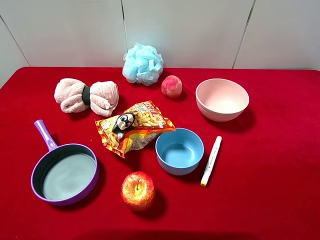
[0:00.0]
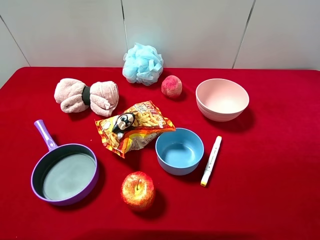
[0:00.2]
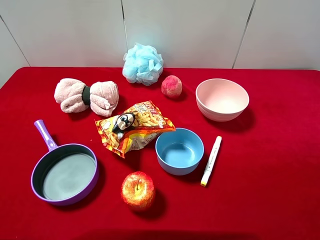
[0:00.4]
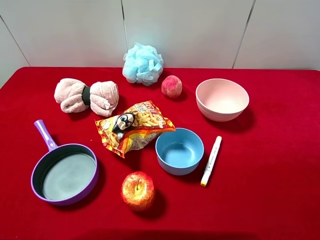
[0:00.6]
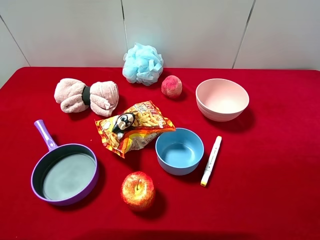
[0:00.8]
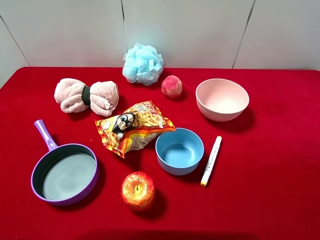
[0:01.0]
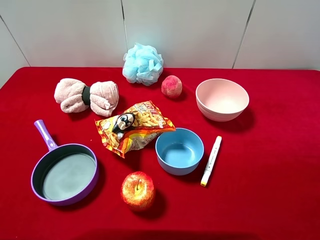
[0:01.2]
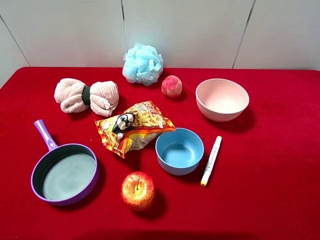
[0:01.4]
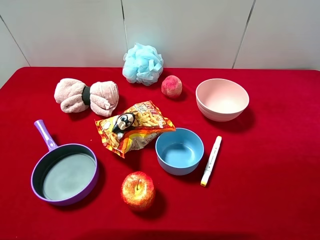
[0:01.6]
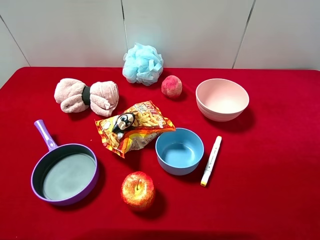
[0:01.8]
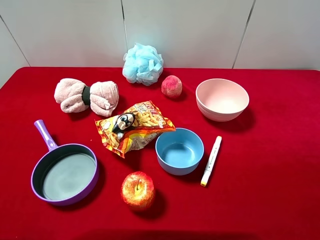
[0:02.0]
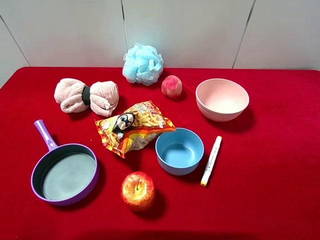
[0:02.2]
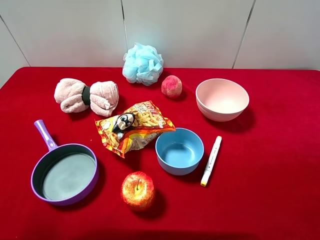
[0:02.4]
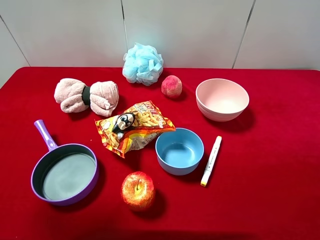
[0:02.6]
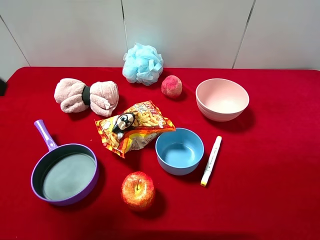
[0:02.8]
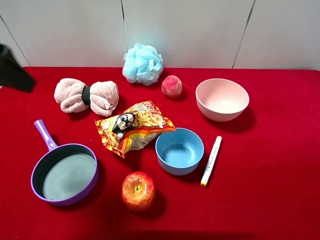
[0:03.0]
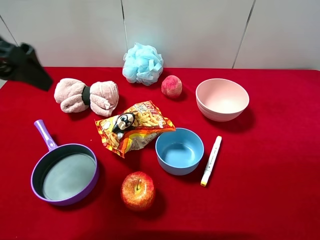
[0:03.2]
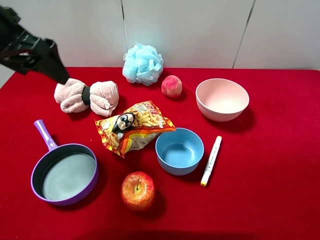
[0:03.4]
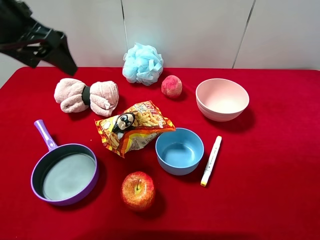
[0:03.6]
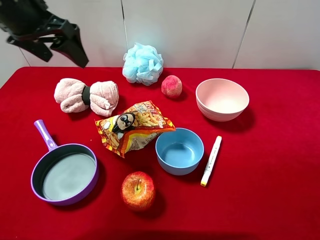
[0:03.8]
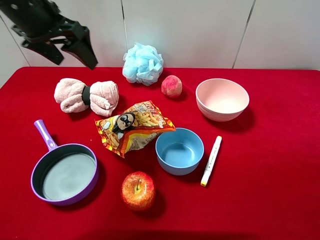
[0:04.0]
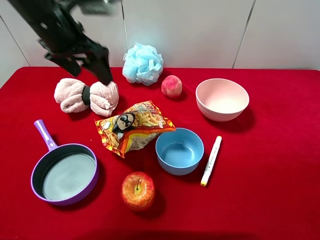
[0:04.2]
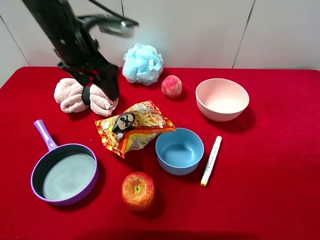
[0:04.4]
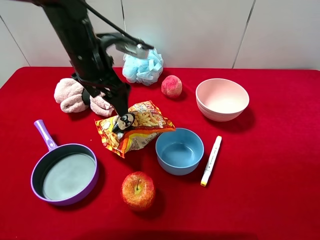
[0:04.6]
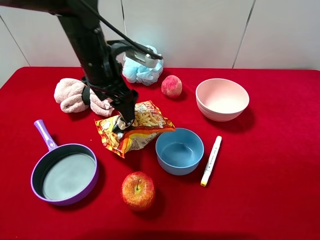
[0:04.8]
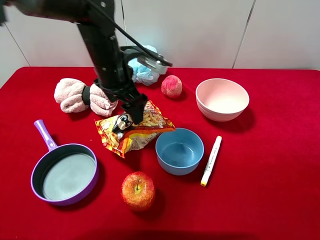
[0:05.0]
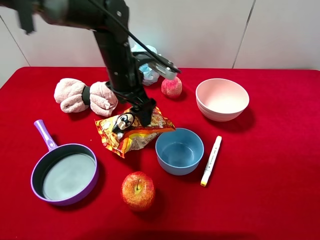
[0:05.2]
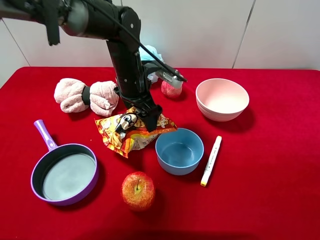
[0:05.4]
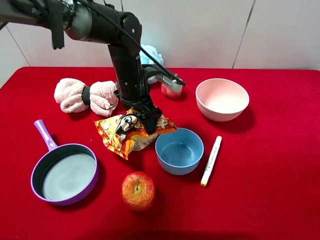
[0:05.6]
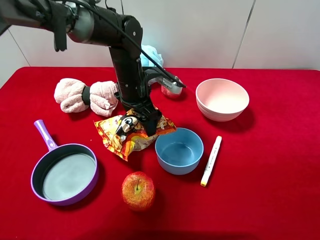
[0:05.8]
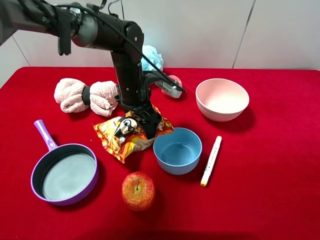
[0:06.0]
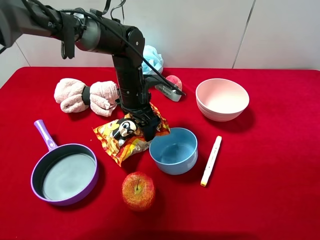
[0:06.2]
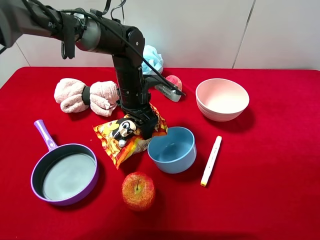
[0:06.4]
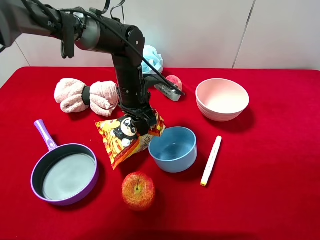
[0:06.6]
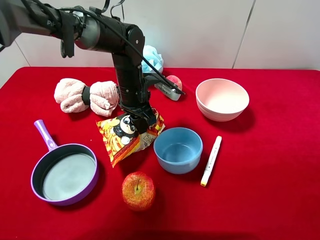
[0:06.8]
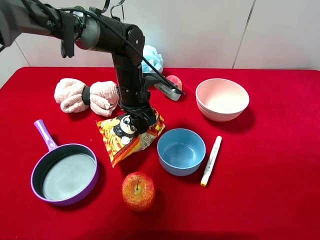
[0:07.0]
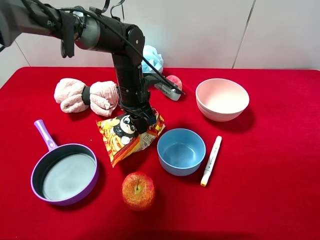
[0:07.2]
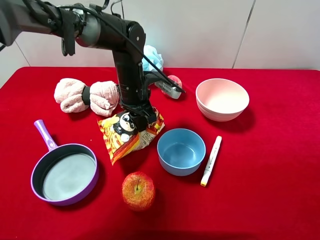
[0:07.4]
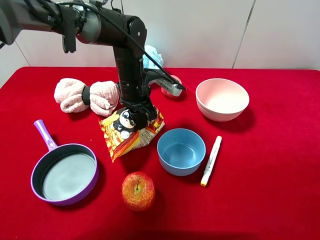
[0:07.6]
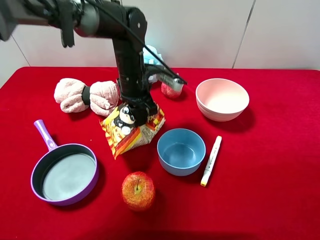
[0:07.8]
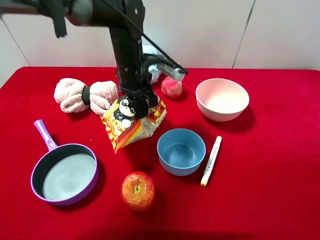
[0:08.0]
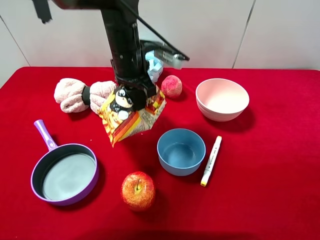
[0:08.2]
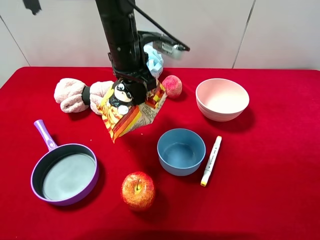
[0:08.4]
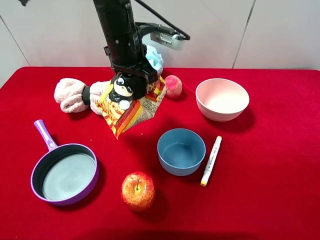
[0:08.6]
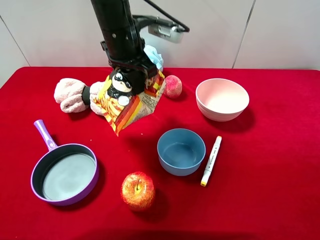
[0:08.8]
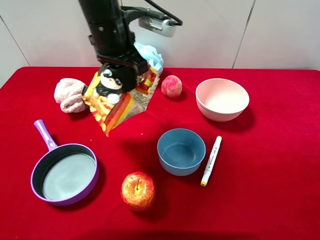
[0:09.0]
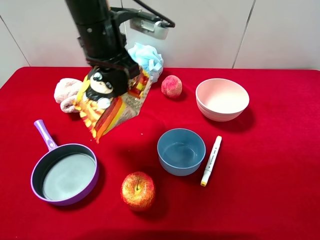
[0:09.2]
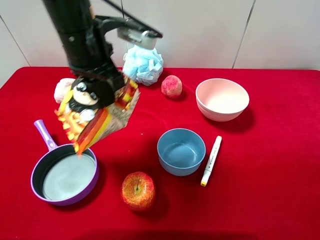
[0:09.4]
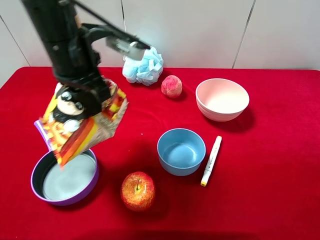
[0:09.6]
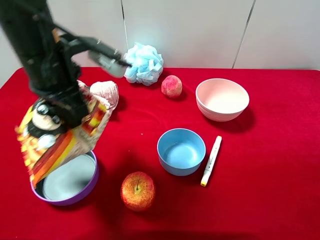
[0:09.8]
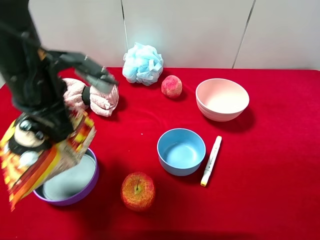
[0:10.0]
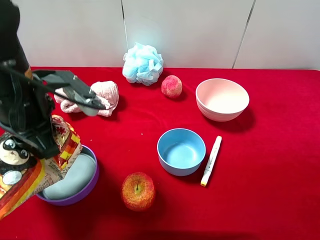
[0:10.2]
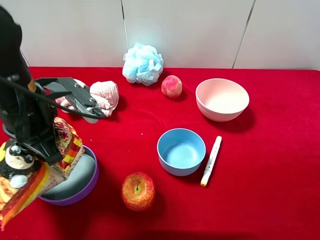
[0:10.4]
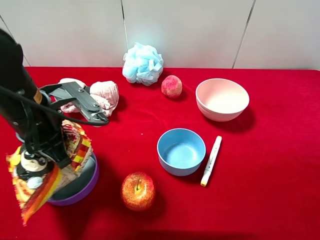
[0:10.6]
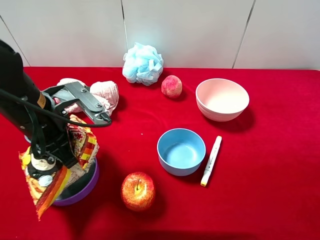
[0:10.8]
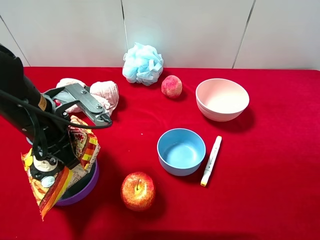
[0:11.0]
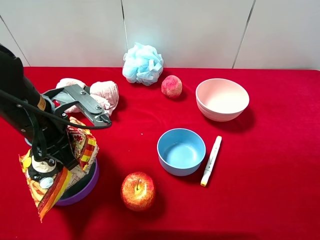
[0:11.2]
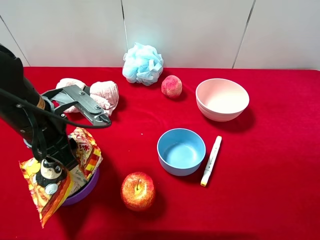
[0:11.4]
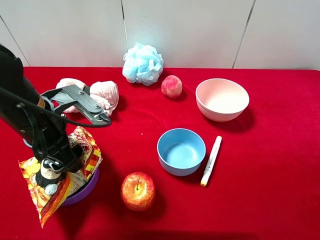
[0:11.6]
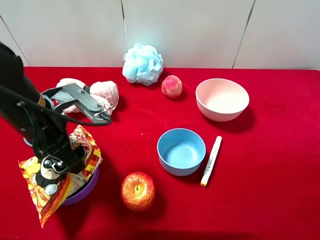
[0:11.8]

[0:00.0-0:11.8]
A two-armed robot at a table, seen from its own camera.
Task of the whole recording: pick up an item with a gripper and place it in a random container on the desktop.
0:00.0 to 0:01.4: Neither gripper changes place.
0:01.4 to 0:03.0: The left gripper heads forward, covering approximately 20 cm.
0:03.0 to 0:04.4: The left gripper is displaced forward, to the right and downward by some 20 cm.
0:04.4 to 0:06.0: The left gripper heads downward and to the right, covering approximately 15 cm.
0:06.0 to 0:07.4: The left gripper closes up.
0:07.4 to 0:08.8: The left gripper travels upward by roughly 15 cm.
0:08.8 to 0:10.4: The left gripper goes some 20 cm backward and to the left.
0:10.4 to 0:11.8: The left gripper opens up.

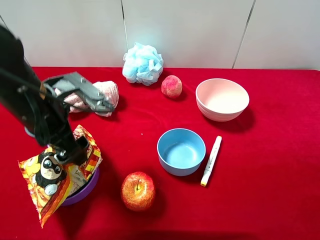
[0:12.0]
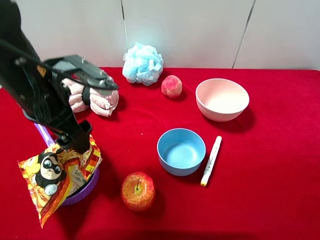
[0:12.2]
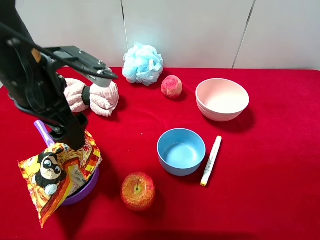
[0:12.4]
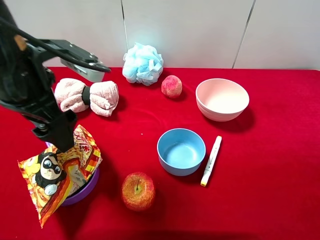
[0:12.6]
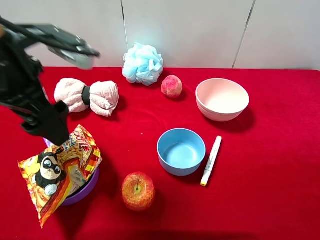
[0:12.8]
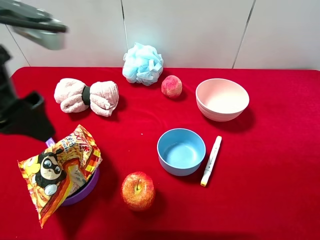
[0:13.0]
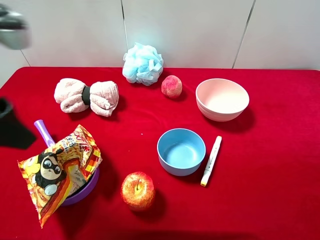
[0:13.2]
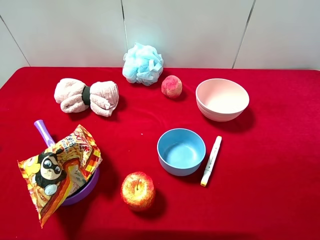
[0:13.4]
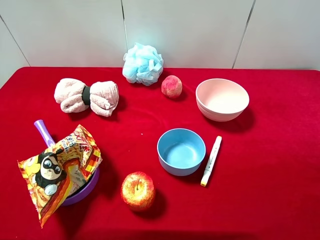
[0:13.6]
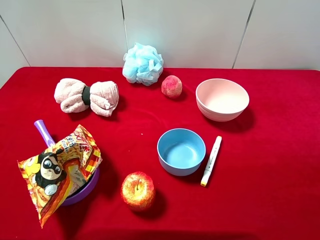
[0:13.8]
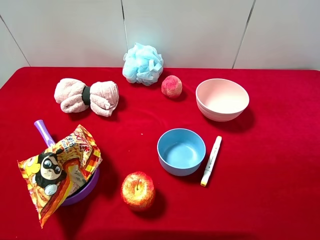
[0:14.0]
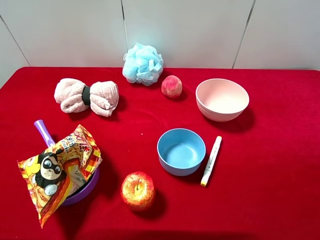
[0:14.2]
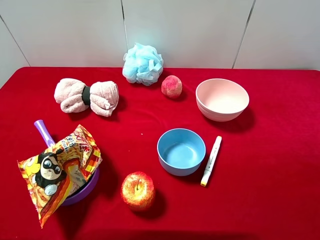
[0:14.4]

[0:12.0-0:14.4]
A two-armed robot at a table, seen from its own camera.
Task of the whole recording: pick up an item with a gripper and place it in a random container on the desktop.
0:12.0 to 0:13.2: The left gripper moves upward, backward and to the left, about 15 cm.
0:13.2 to 0:14.4: The left gripper heads backward, to the left and downward, covering some 15 cm.

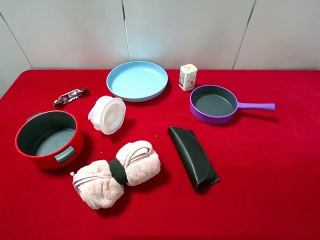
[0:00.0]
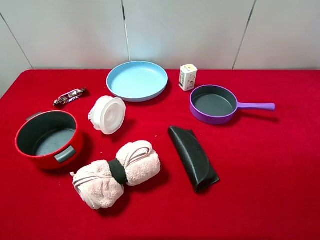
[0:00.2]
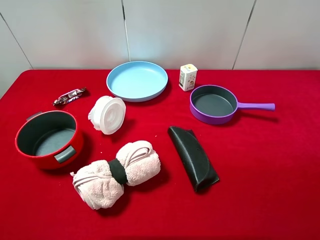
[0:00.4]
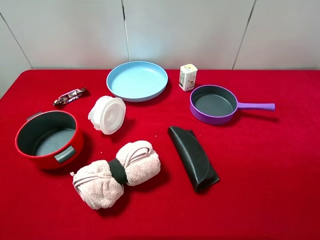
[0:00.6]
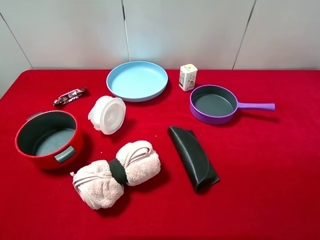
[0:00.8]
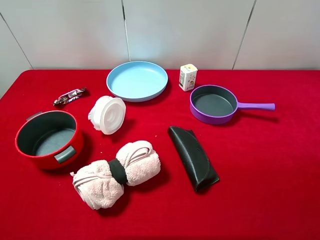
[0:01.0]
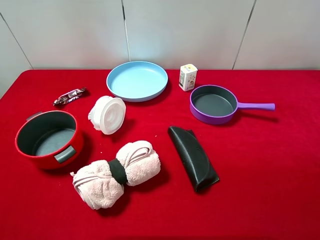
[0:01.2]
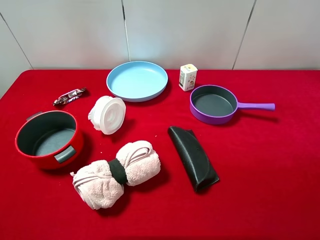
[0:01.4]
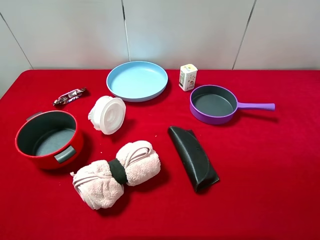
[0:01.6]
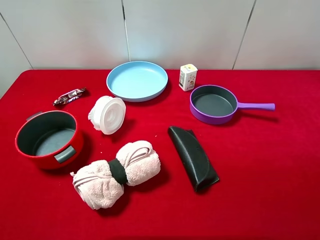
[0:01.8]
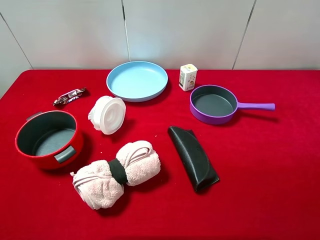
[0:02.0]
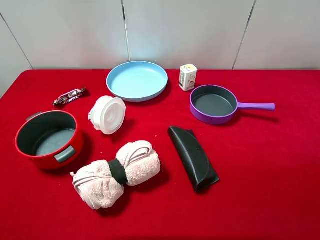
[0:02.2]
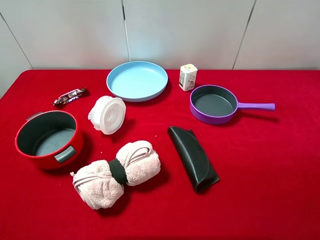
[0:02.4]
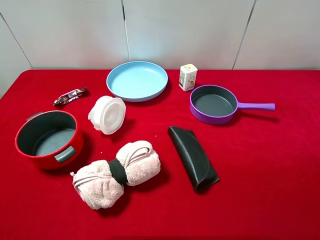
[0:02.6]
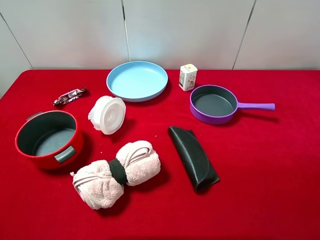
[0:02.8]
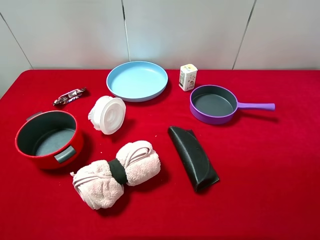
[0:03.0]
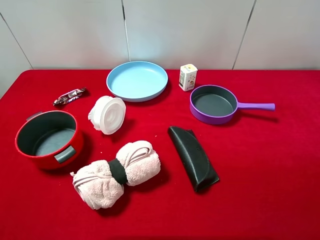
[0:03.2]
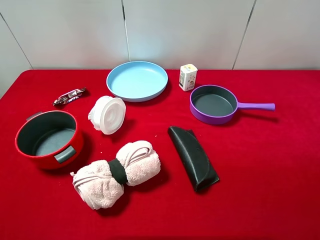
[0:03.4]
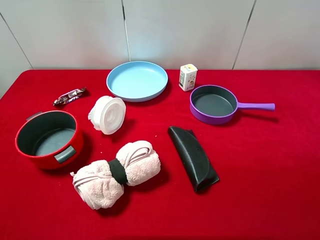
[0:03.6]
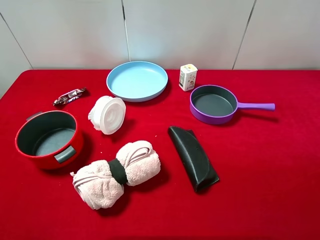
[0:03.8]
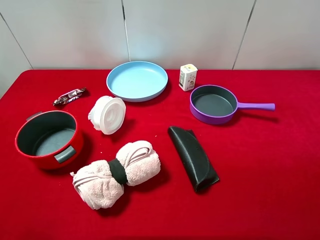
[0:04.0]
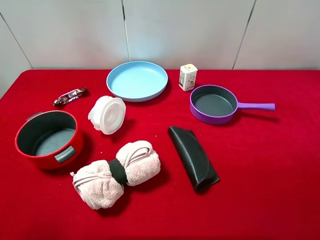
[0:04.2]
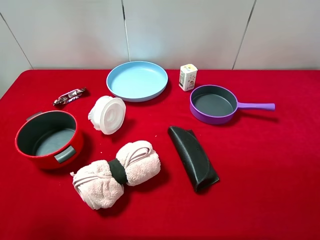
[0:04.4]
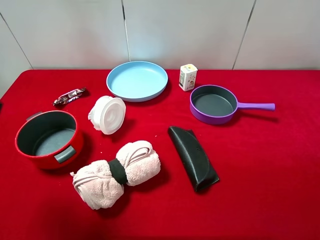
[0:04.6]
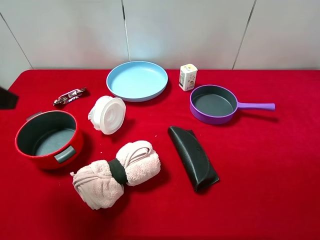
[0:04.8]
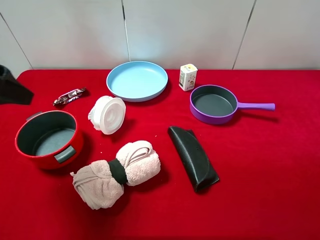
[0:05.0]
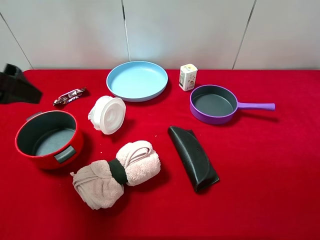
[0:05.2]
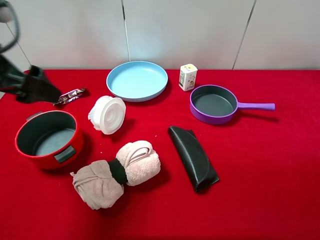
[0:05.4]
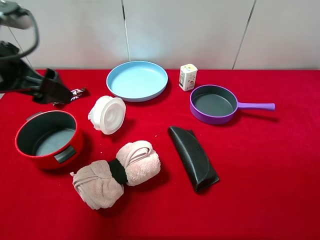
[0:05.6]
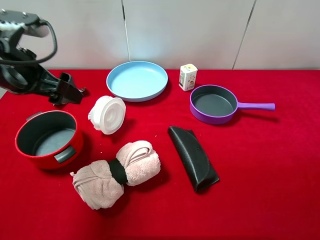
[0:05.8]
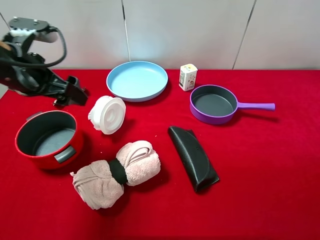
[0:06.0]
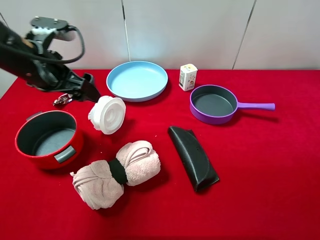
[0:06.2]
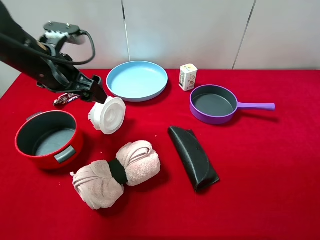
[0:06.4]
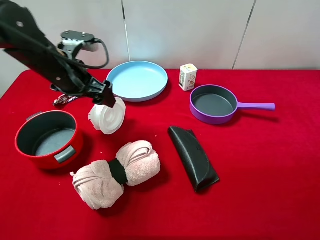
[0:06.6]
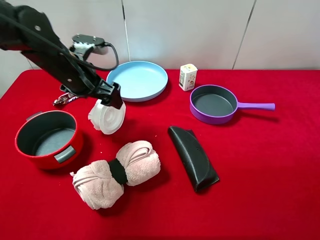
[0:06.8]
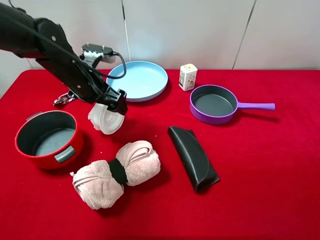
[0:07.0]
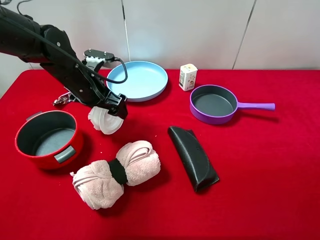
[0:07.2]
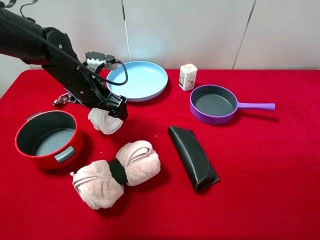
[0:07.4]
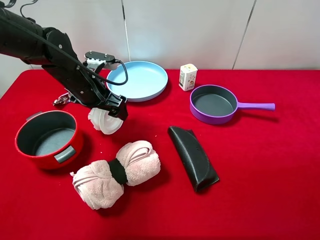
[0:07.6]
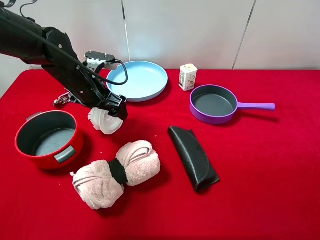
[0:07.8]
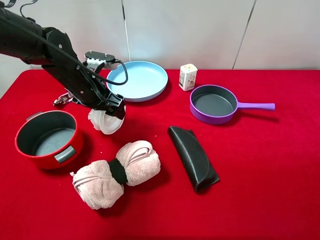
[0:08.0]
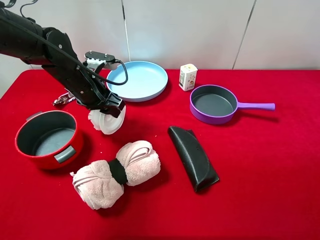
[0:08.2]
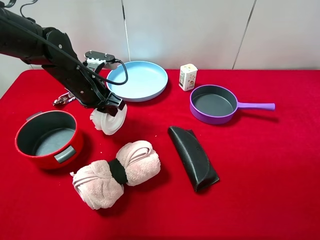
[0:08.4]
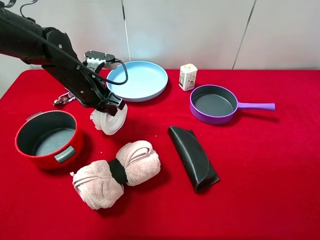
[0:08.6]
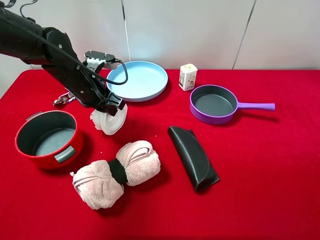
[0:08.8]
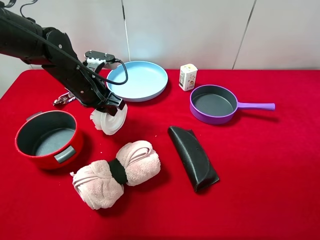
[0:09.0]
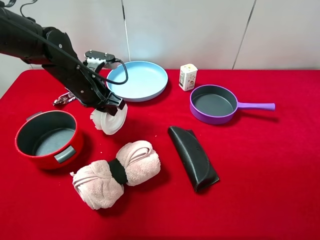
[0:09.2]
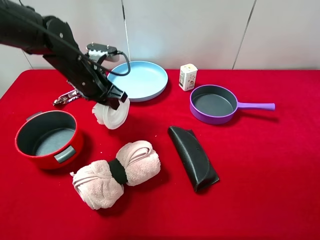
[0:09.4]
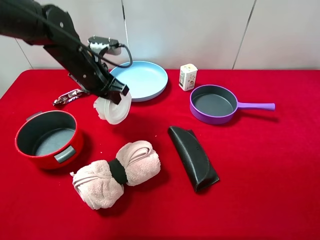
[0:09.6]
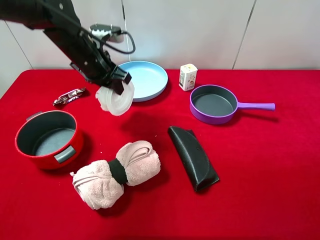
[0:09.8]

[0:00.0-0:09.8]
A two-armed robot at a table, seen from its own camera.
Task of the whole recording: pick up an item with a gripper and place it in a random container on the desktop.
0:00.0 to 0:02.8: Both grippers stay put.
0:04.2 to 0:05.6: The left gripper travels forward by roughly 15 cm.
0:05.6 to 0:07.0: The left gripper moves downward, forward and to the right, some 15 cm.
0:07.0 to 0:08.4: The left gripper closes.
0:08.4 to 0:09.8: The left gripper moves upward, approximately 5 cm.
